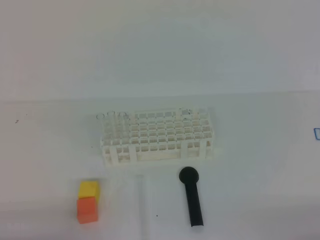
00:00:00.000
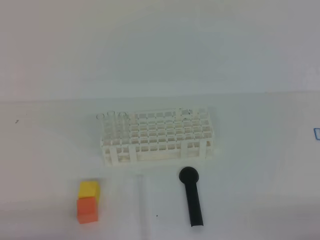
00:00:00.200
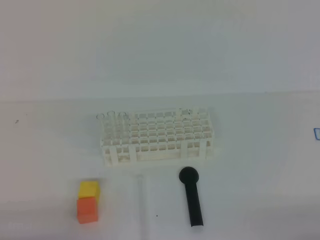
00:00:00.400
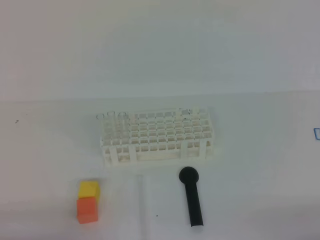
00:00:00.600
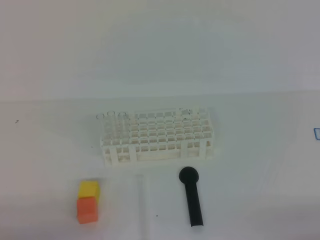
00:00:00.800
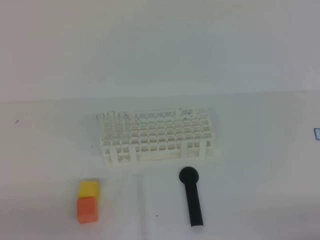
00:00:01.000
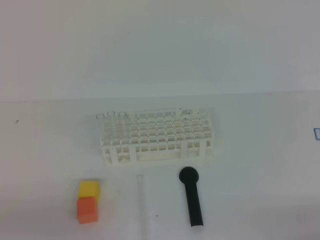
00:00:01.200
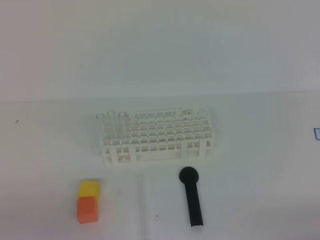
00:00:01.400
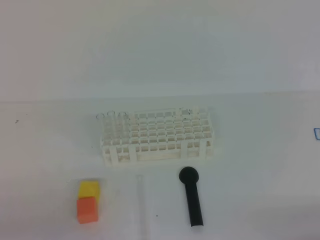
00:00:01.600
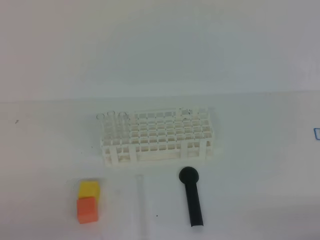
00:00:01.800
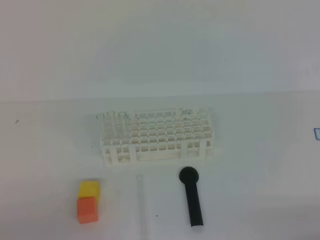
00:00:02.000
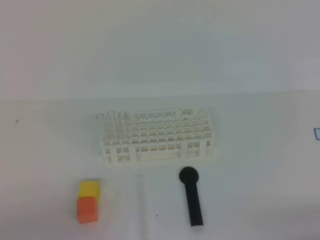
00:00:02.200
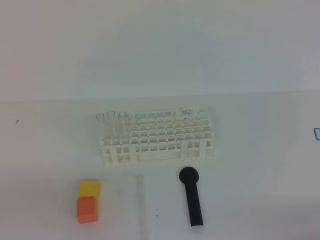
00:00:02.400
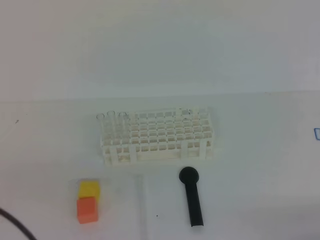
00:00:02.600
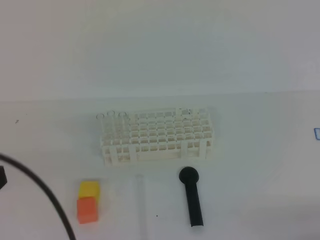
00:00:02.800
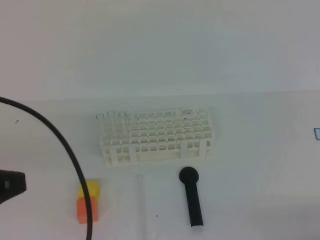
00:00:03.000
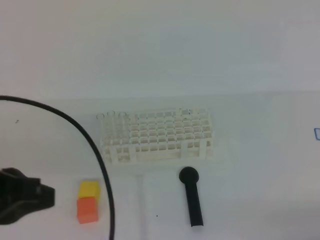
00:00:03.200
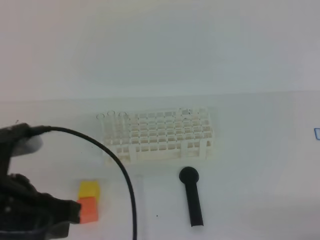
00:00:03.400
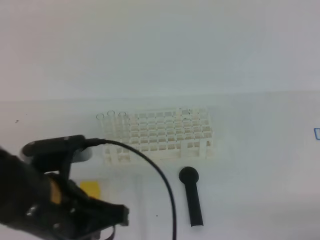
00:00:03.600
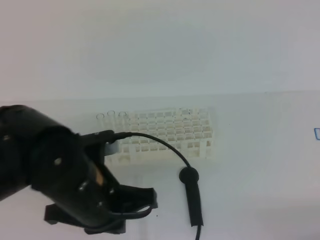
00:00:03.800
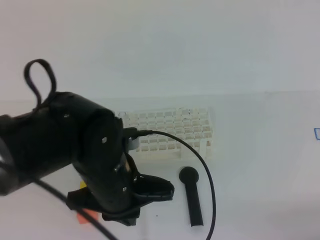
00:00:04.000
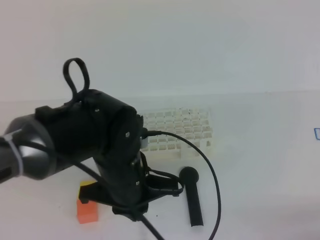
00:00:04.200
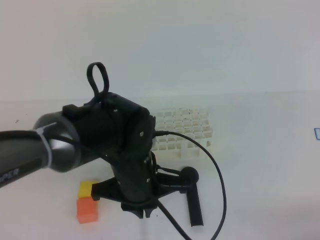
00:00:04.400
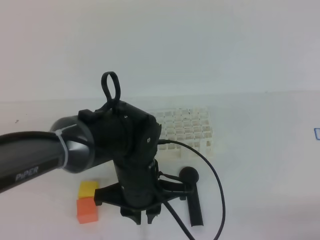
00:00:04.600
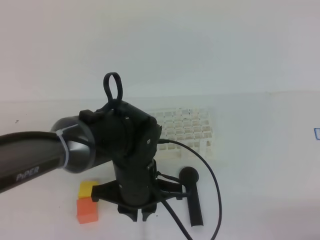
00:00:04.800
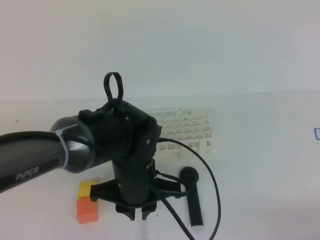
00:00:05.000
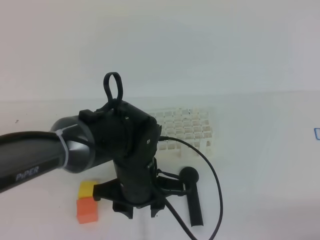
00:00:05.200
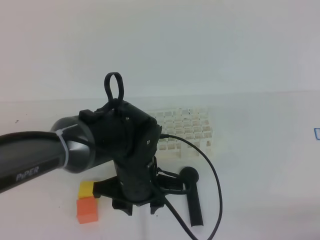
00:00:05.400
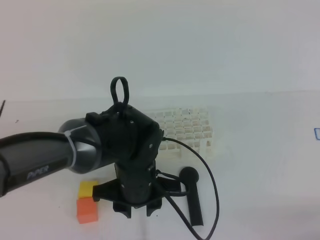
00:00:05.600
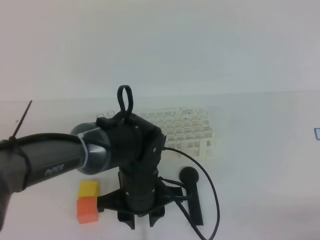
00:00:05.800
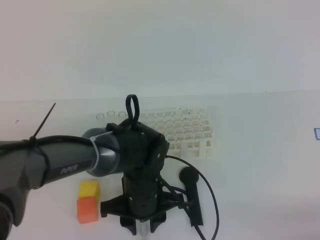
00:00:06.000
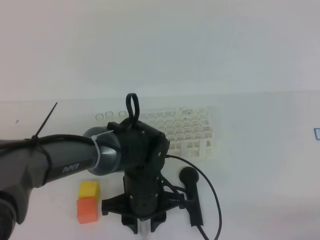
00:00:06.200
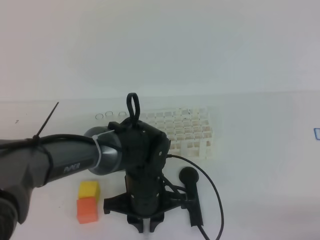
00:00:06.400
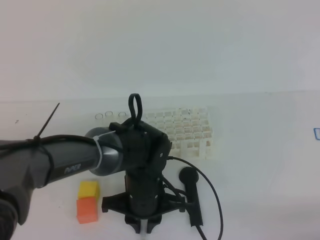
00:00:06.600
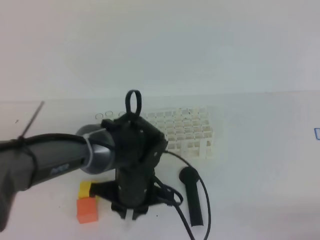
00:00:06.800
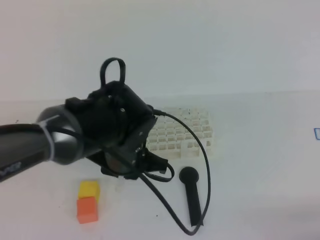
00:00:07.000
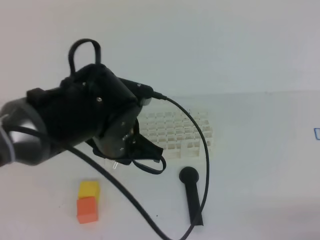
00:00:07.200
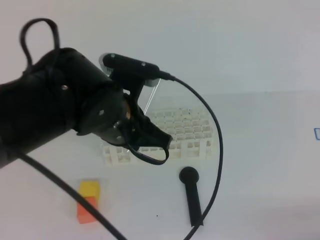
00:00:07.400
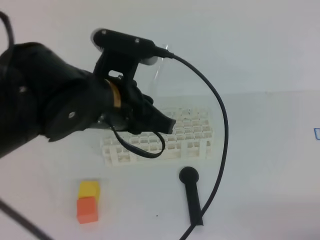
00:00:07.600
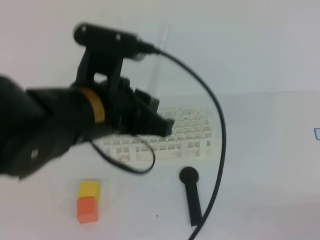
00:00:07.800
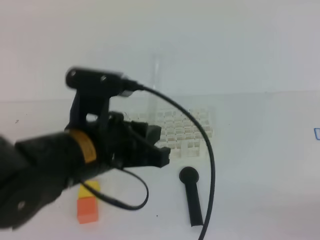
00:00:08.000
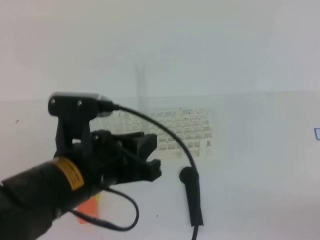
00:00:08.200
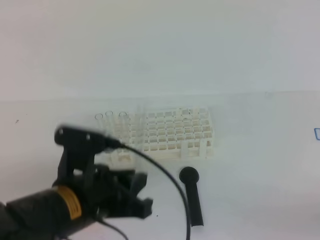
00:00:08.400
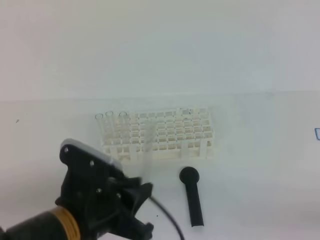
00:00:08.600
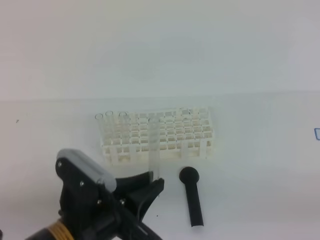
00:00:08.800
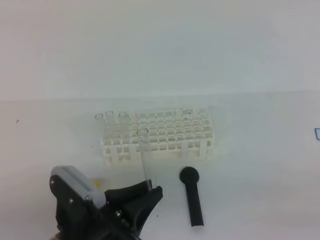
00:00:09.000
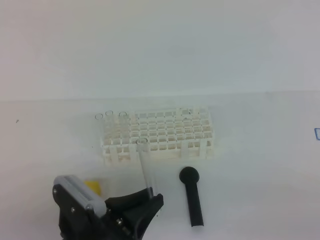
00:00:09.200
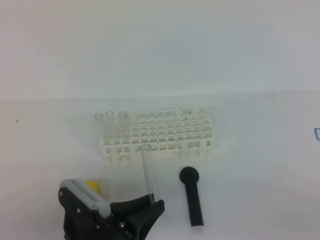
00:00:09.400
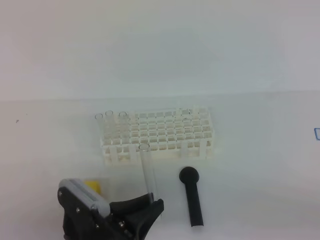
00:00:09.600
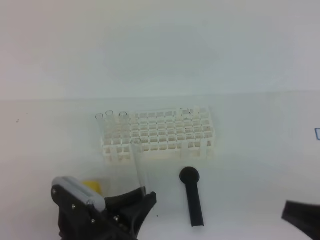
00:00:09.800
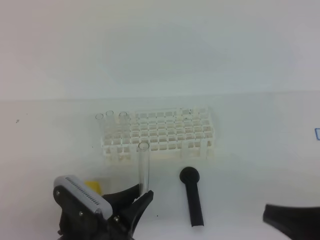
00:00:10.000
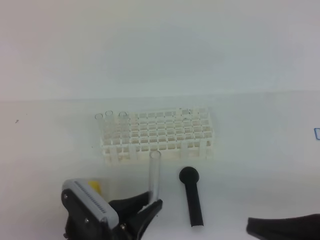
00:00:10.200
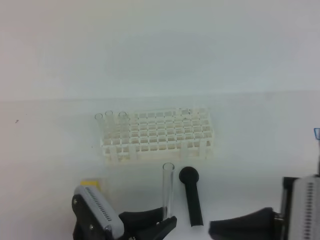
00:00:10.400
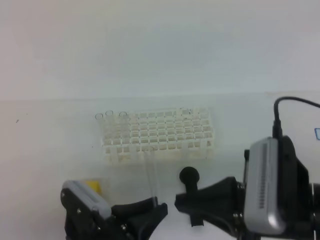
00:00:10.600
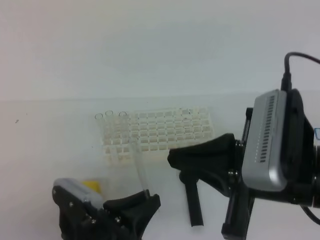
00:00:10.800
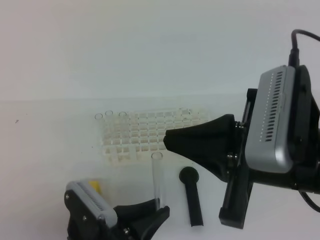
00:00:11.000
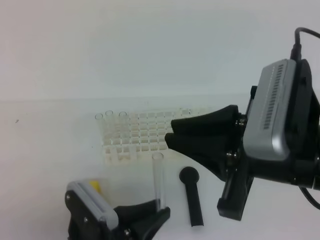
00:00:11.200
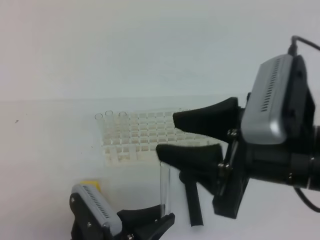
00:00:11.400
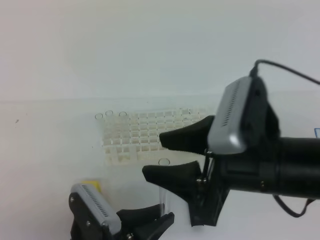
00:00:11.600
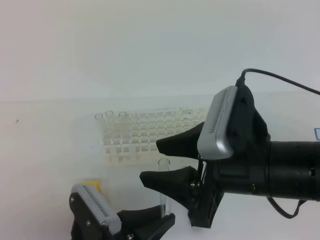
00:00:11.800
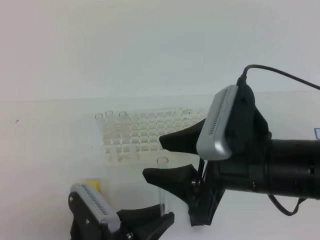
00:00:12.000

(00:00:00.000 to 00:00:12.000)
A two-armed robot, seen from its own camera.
00:00:01.600 - 00:00:03.000: The left gripper is displaced upward and forward by approximately 15 cm.
00:00:03.000 - 00:00:04.400: The left gripper is displaced to the right, forward and downward by approximately 25 cm.
00:00:04.400 - 00:00:06.000: The left gripper heads downward, covering roughly 5 cm, and opens.
00:00:06.000 - 00:00:07.600: The left gripper travels upward by some 20 cm, and closes up.
00:00:07.600 - 00:00:09.000: The left gripper goes approximately 15 cm downward and backward, while the right gripper travels upward by approximately 10 cm.
00:00:09.000 - 00:00:10.400: The right gripper travels to the left and forward by roughly 15 cm.
00:00:10.400 - 00:00:12.000: The right gripper is displaced forward and to the left by approximately 10 cm, and opens.

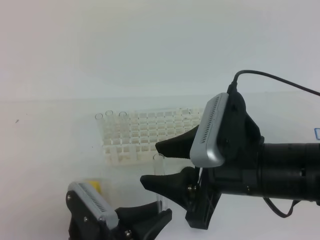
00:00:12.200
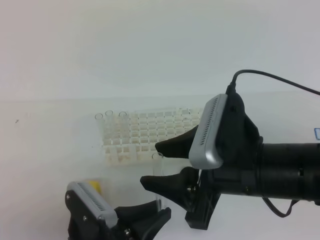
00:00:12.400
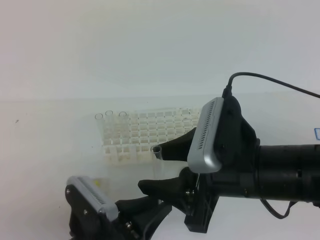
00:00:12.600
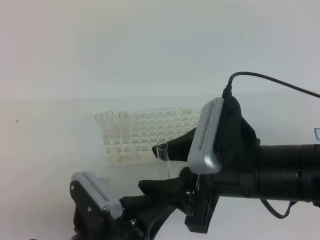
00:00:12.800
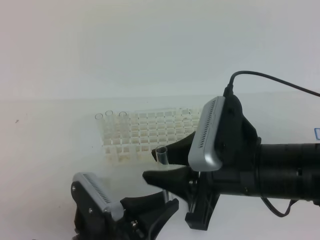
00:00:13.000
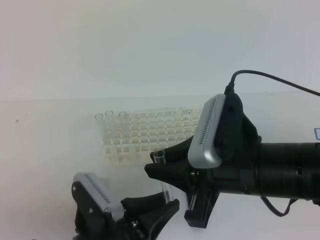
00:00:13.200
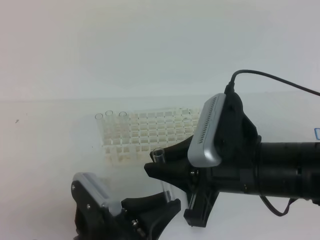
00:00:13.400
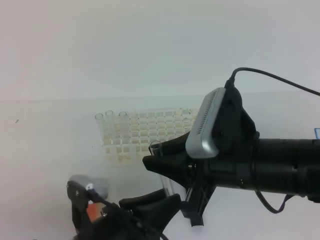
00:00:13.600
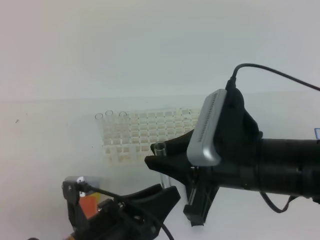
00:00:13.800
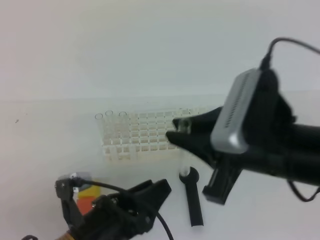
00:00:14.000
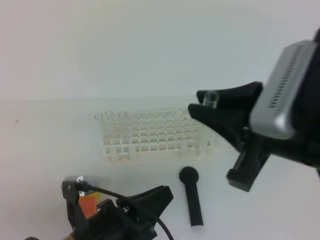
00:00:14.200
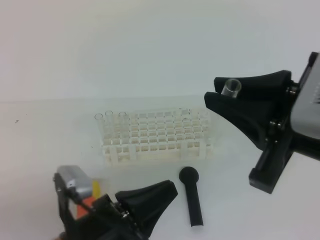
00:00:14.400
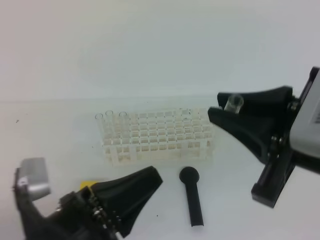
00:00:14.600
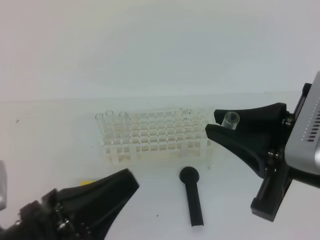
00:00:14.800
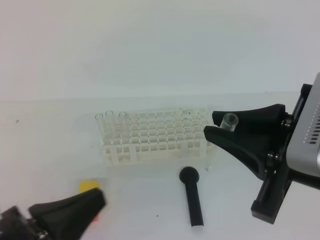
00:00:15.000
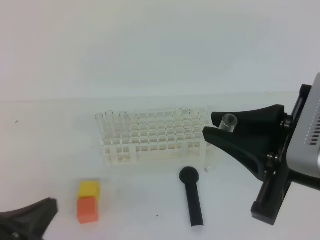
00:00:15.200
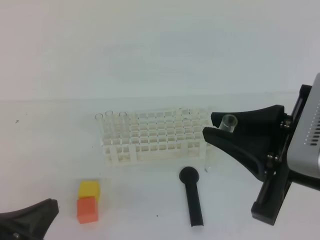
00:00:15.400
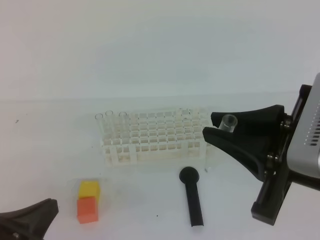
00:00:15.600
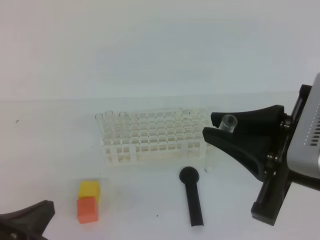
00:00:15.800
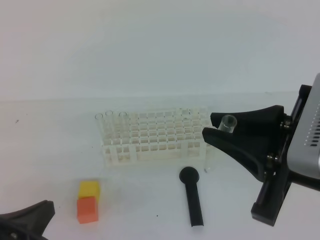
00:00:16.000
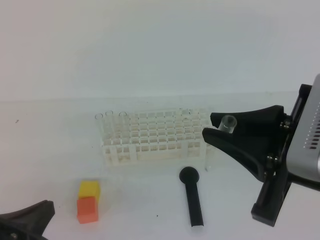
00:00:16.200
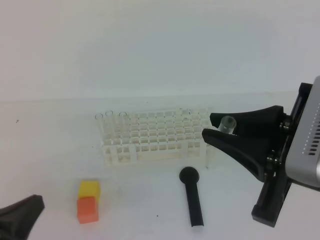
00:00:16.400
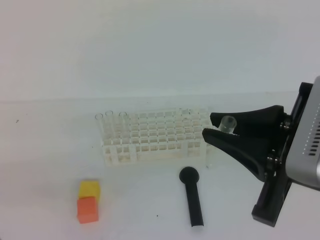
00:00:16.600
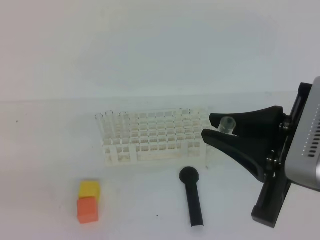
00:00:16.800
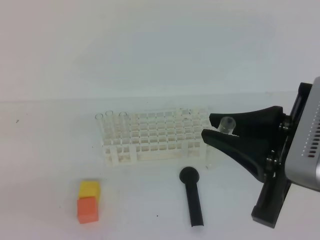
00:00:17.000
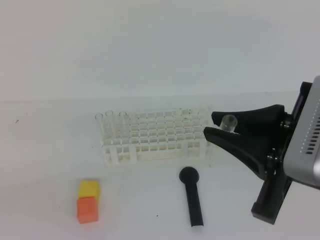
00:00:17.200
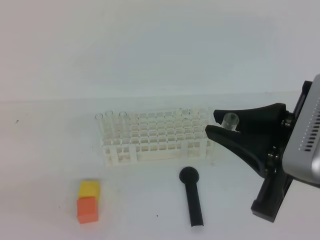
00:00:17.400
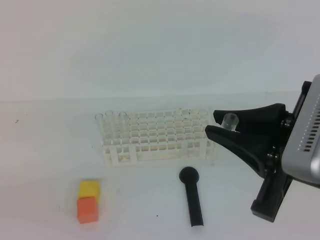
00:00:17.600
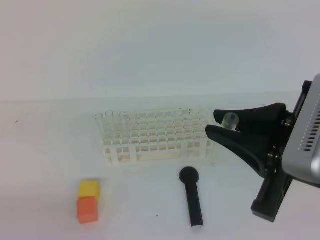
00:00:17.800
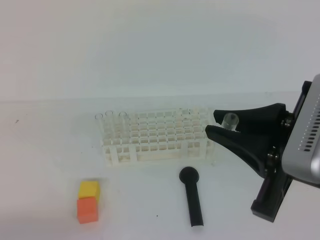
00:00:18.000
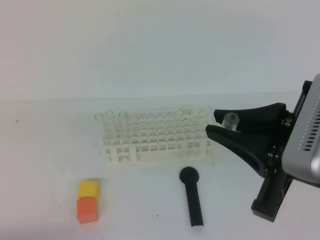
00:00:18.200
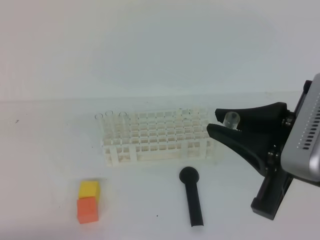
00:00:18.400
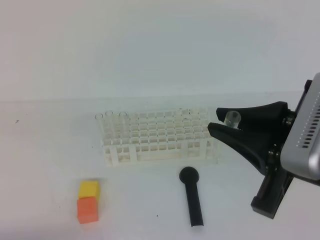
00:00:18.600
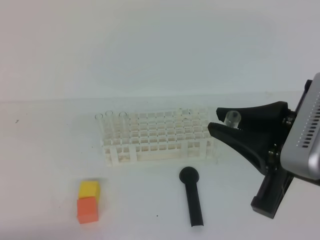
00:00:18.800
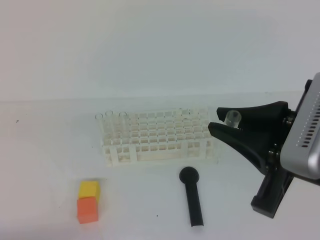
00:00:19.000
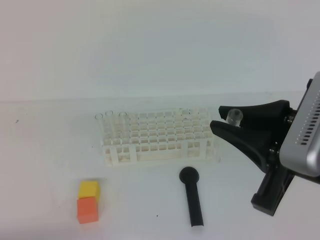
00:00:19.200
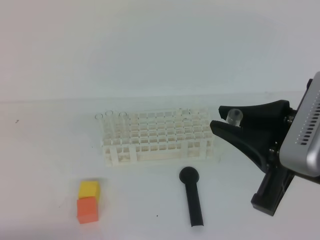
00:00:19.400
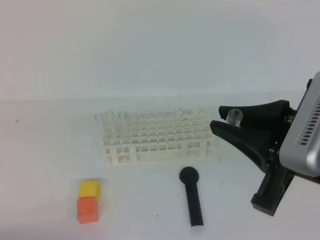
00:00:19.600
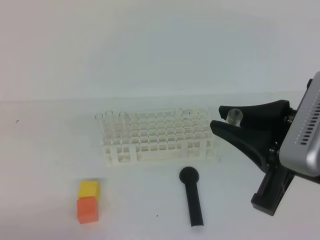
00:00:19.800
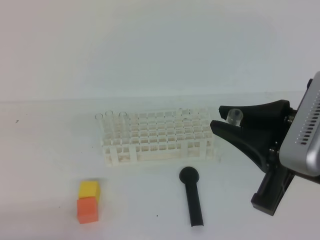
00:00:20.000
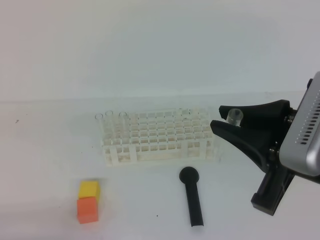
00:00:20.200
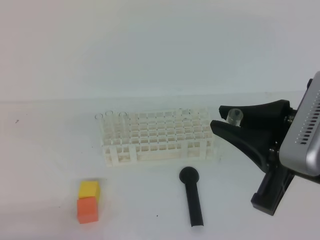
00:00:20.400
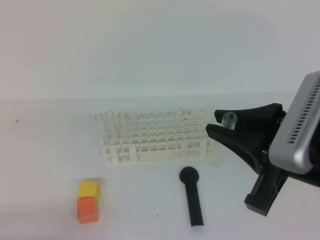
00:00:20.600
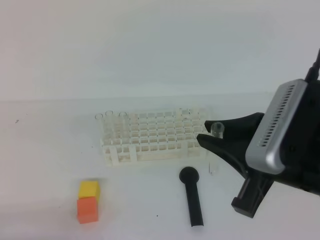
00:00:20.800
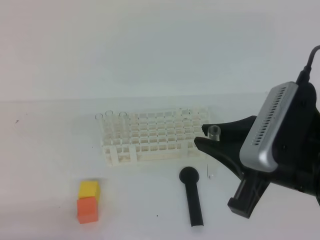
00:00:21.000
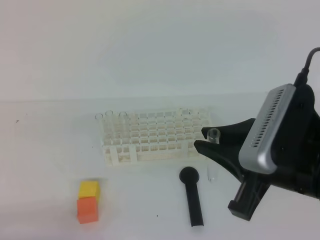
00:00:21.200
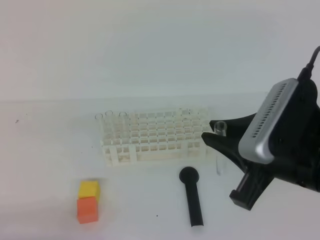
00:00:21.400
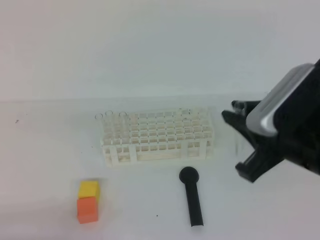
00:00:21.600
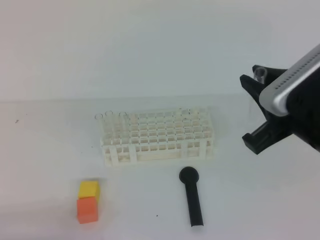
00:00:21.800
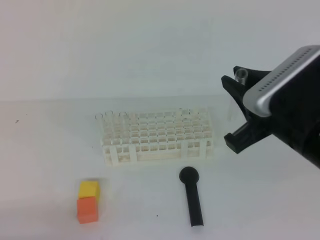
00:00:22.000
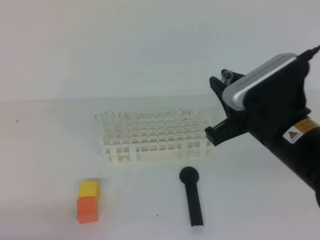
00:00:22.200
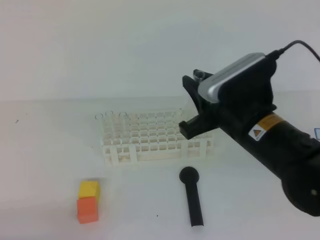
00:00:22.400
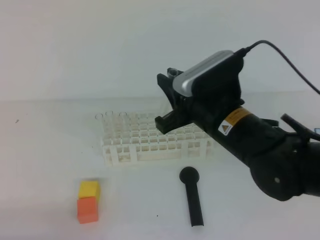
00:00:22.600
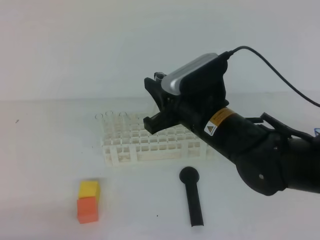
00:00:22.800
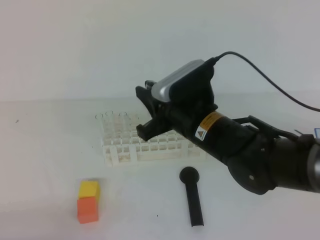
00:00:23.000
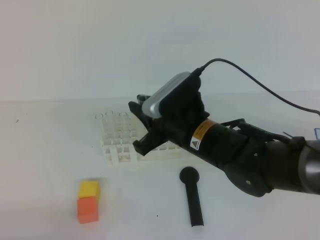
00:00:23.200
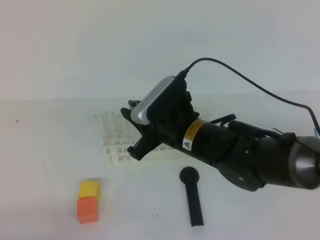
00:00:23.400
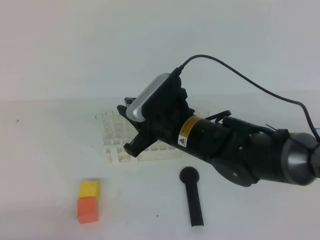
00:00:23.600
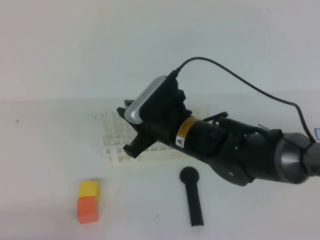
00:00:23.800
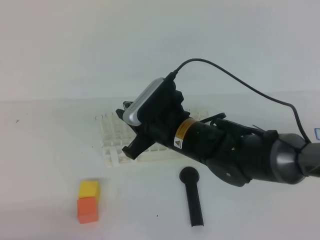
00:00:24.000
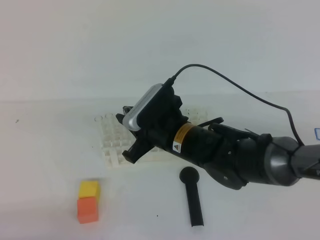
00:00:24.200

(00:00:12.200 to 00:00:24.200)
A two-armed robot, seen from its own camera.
00:00:12.200 - 00:00:13.800: The right gripper closes up, while the left gripper opens its fingers.
00:00:13.800 - 00:00:15.200: The right gripper travels to the right by some 5 cm. The left gripper goes about 15 cm to the left, upward and backward, and closes.
00:00:15.200 - 00:00:16.600: The left gripper goes some 5 cm to the left.
00:00:21.200 - 00:00:22.600: The right gripper is displaced forward and to the left by some 10 cm.
00:00:22.600 - 00:00:24.200: The right gripper moves to the left and downward, roughly 10 cm.
